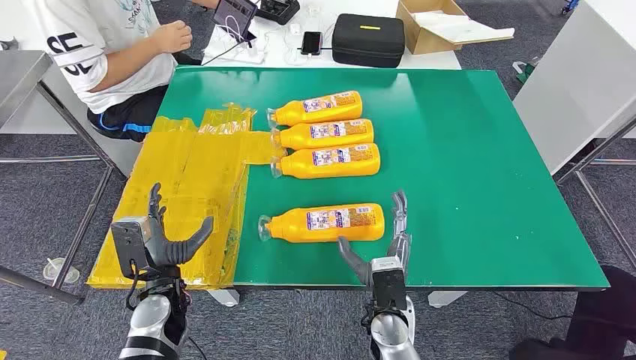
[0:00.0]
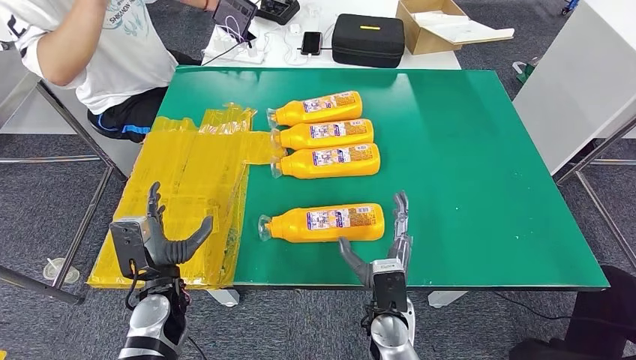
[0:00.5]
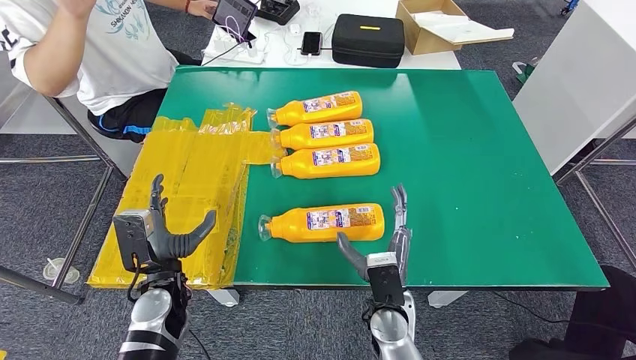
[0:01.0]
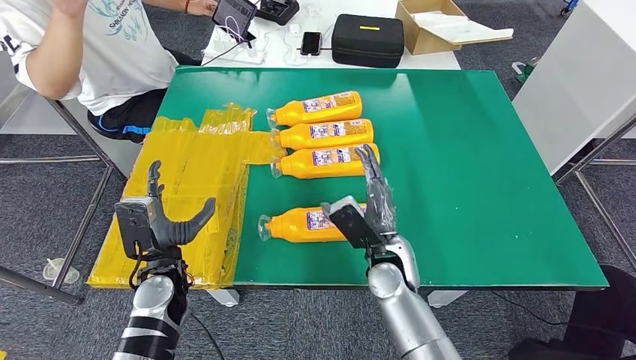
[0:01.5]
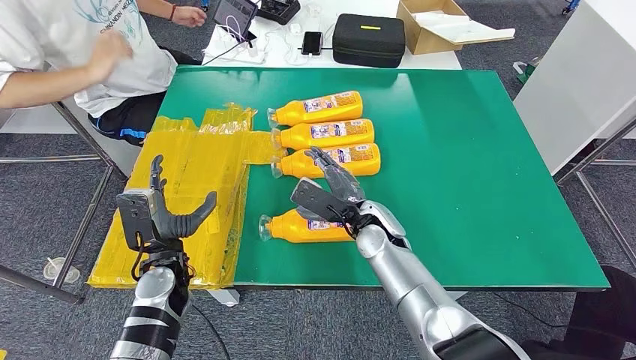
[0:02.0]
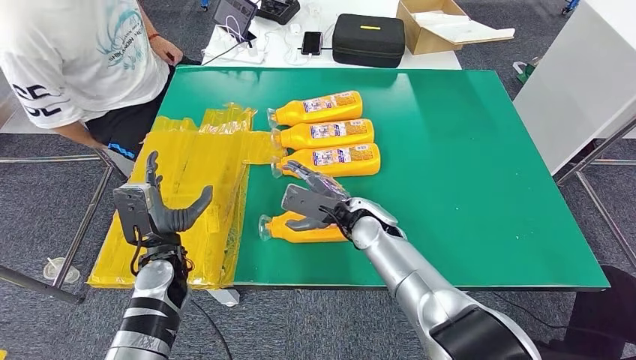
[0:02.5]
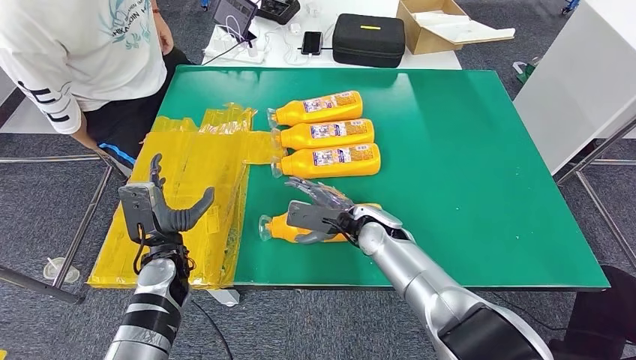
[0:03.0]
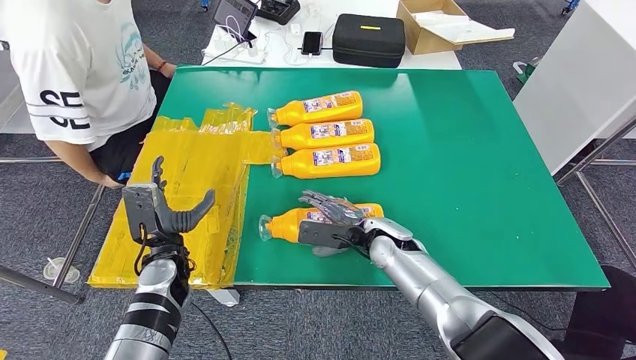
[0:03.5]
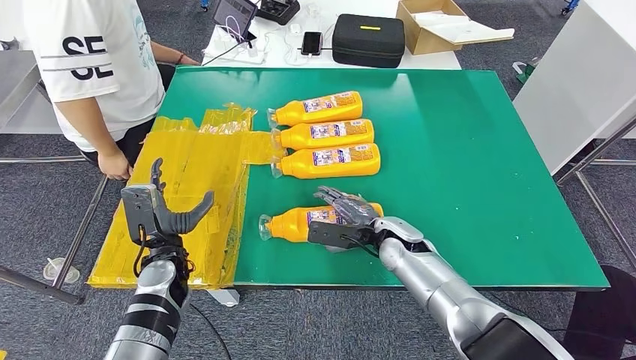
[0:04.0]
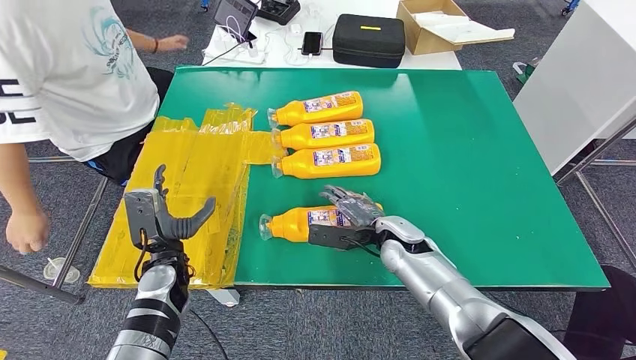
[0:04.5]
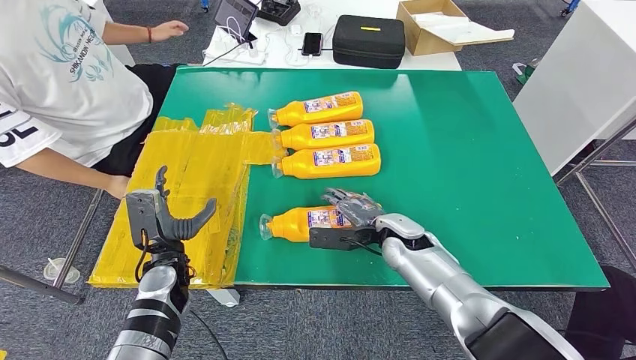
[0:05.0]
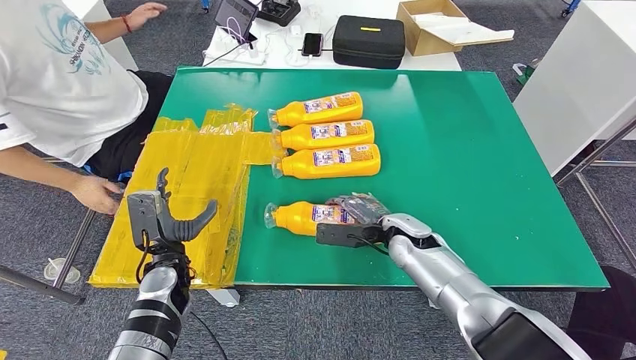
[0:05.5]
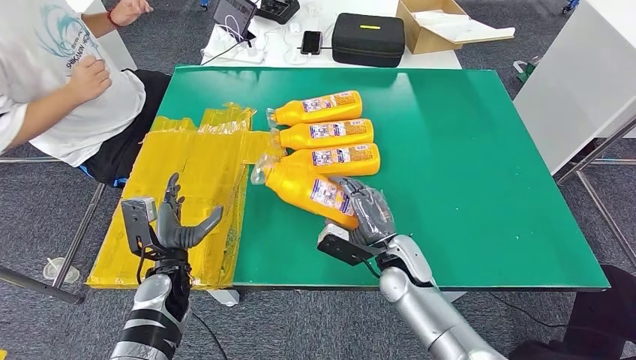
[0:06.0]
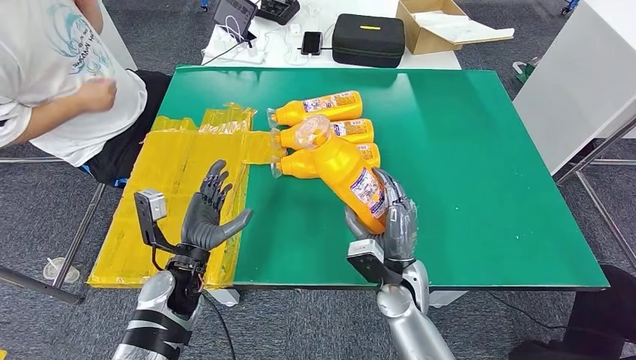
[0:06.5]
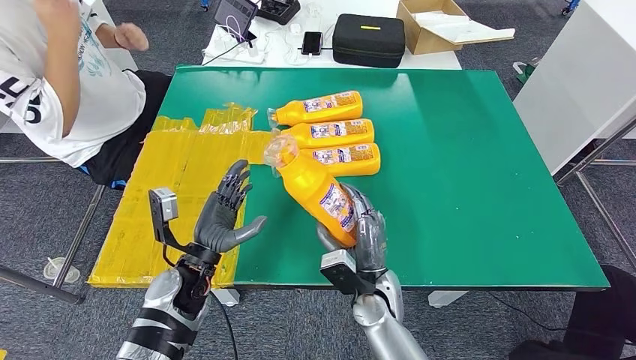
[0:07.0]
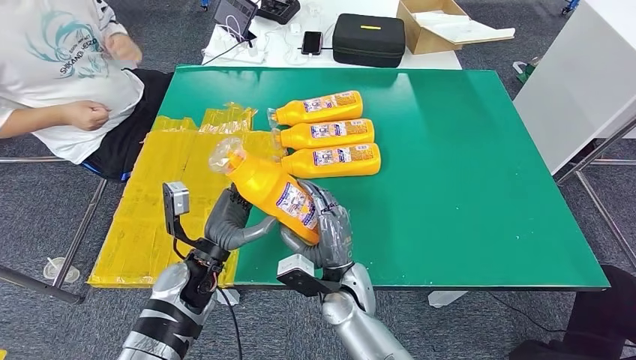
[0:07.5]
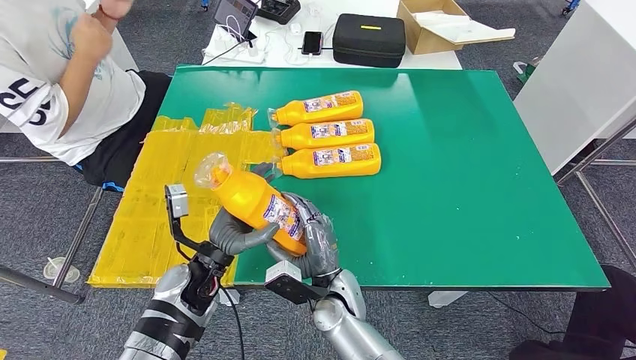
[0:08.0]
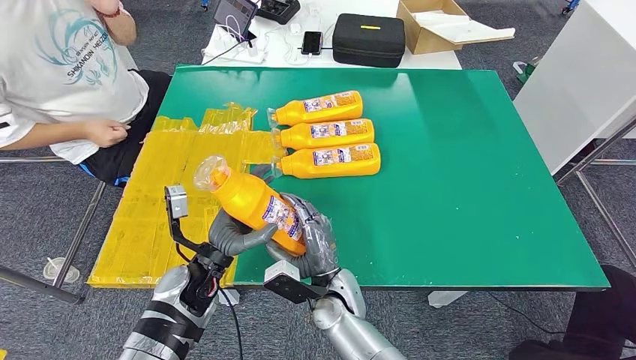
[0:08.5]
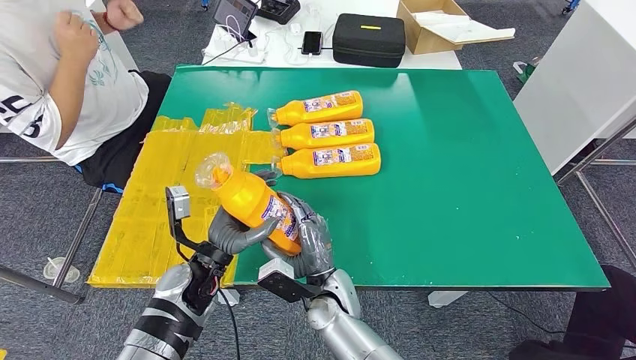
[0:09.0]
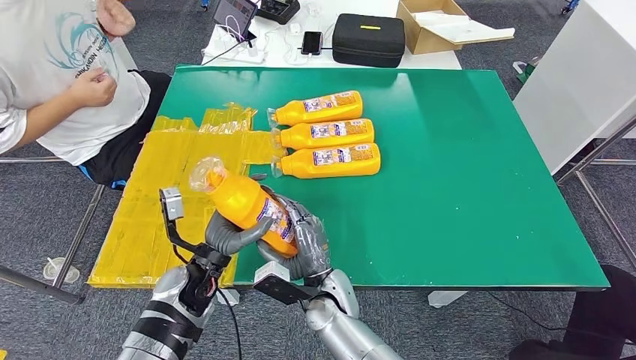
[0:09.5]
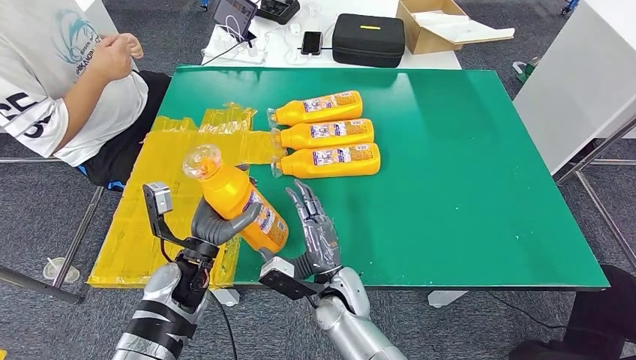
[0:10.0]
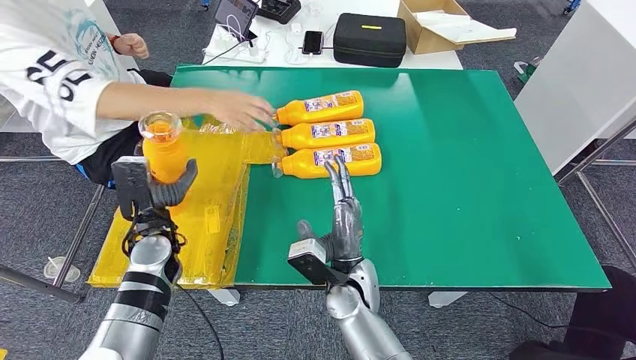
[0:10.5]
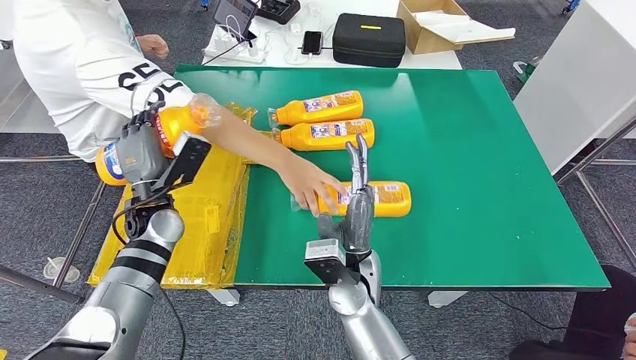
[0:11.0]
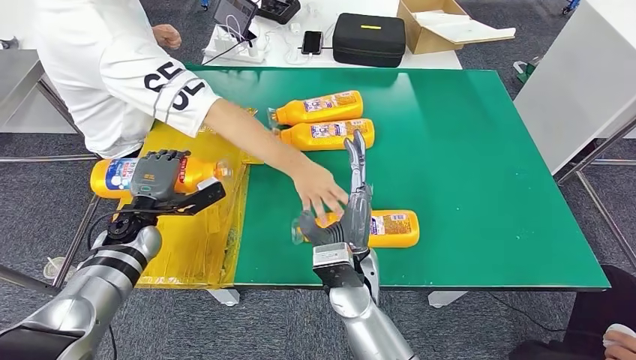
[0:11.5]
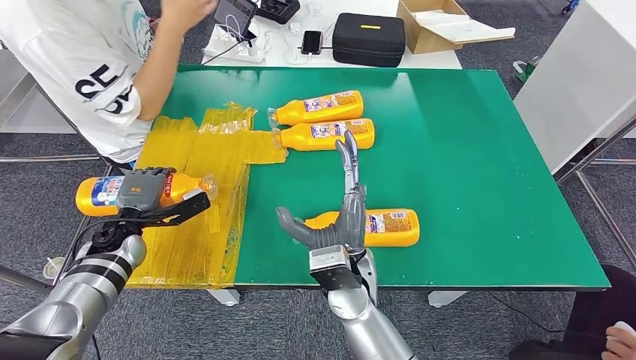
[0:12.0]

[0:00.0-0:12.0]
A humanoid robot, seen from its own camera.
Step, 0:00.0 to 0:06.5: Take the fast-moving consumer goods bottle from the table.
0:02.0 to 0:04.0: The right hand shifts by some 5 cm.
0:08.0 to 0:10.0: The hands make only small movements.

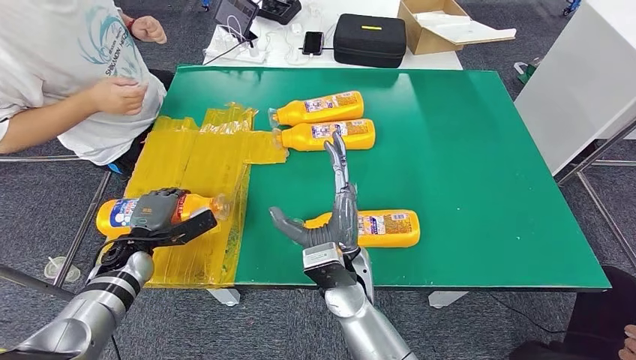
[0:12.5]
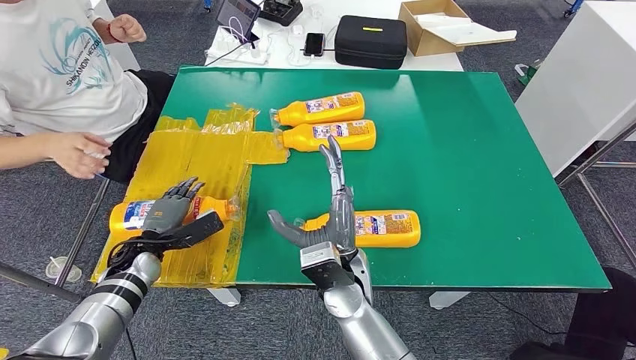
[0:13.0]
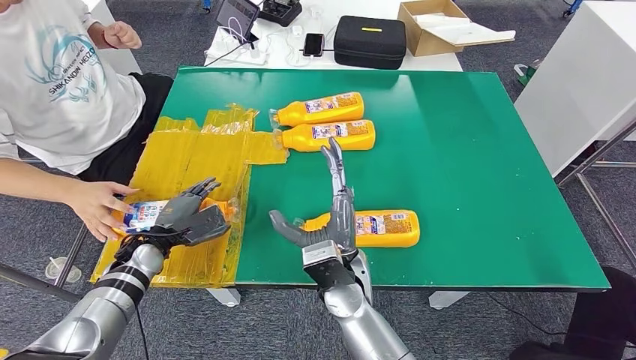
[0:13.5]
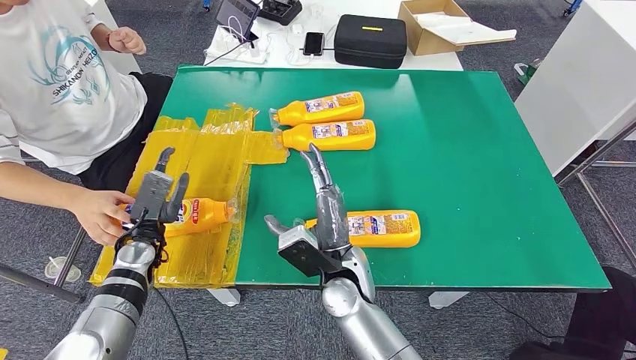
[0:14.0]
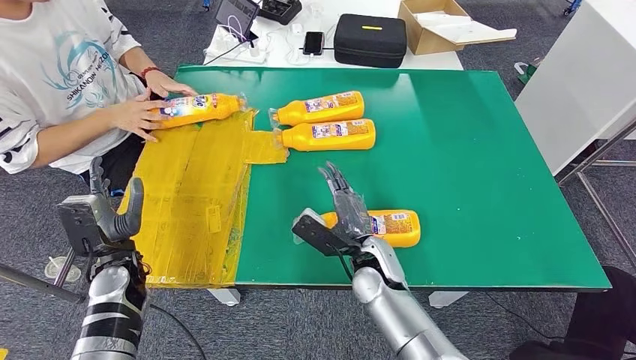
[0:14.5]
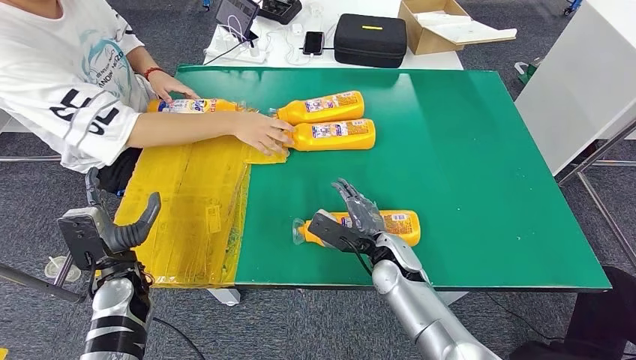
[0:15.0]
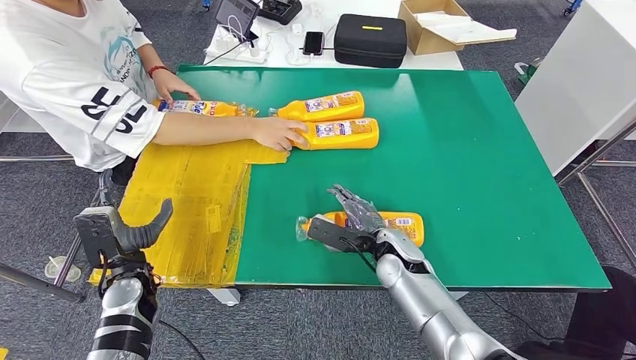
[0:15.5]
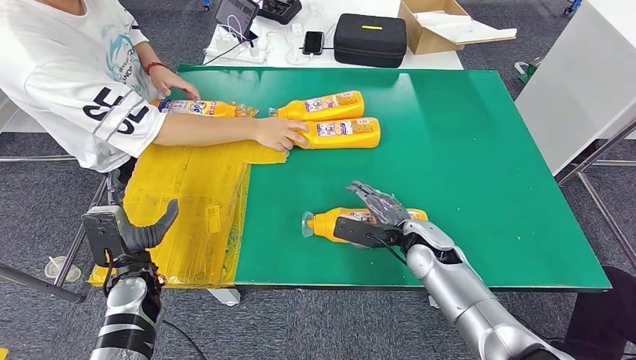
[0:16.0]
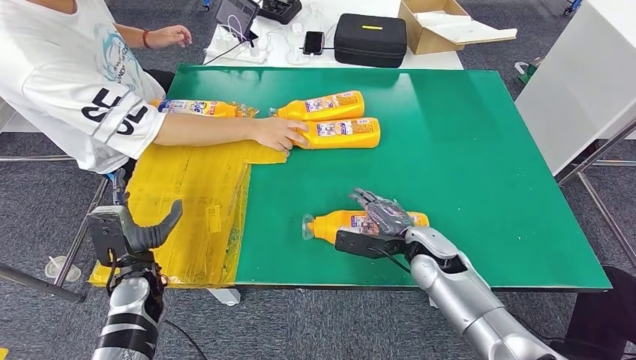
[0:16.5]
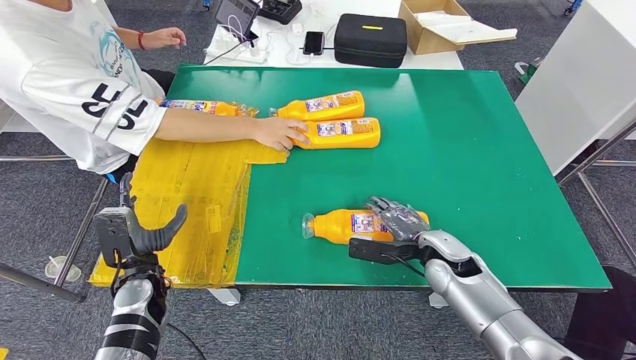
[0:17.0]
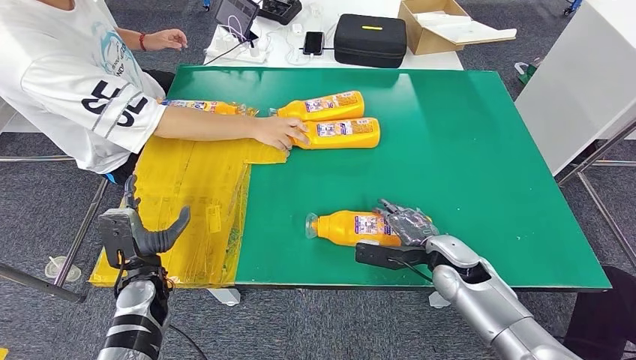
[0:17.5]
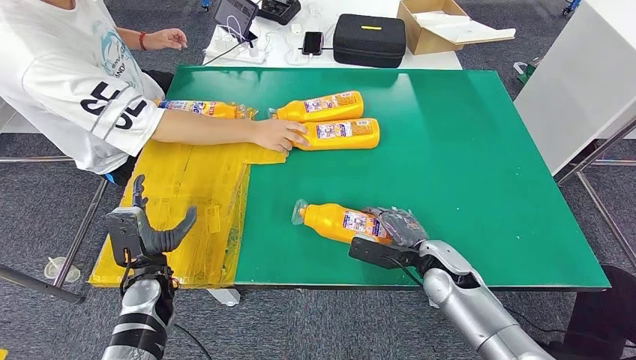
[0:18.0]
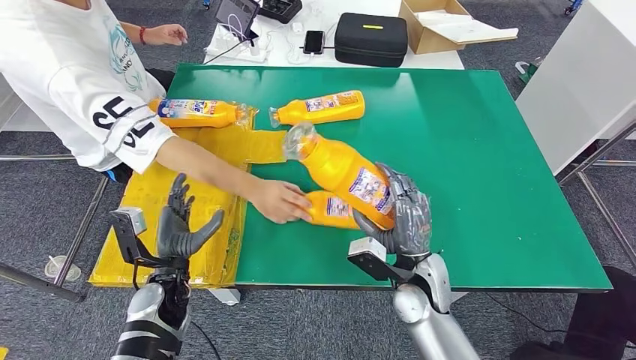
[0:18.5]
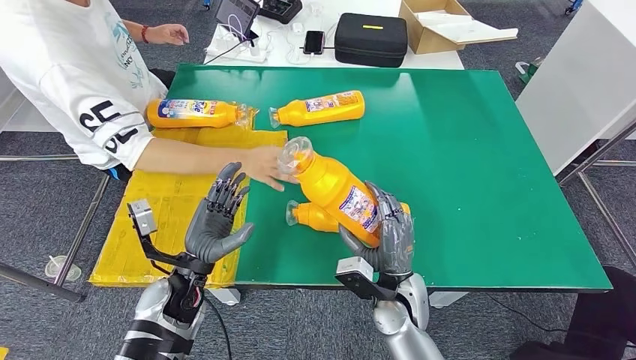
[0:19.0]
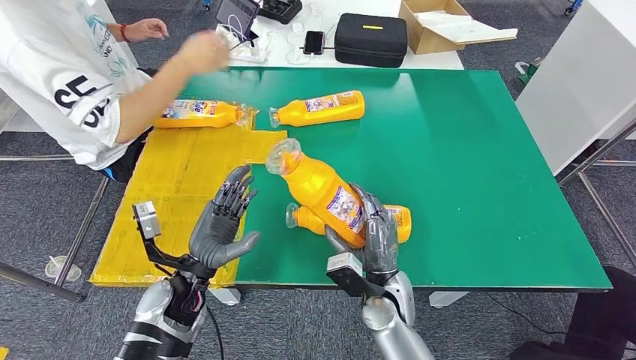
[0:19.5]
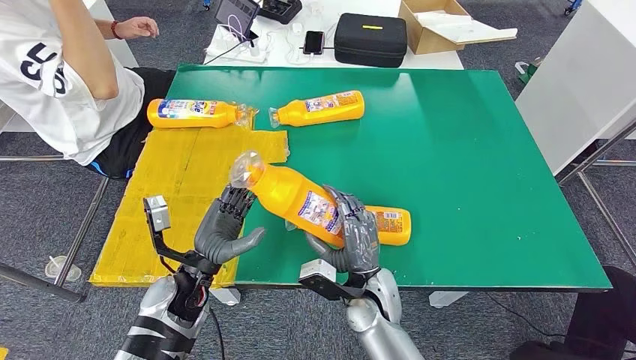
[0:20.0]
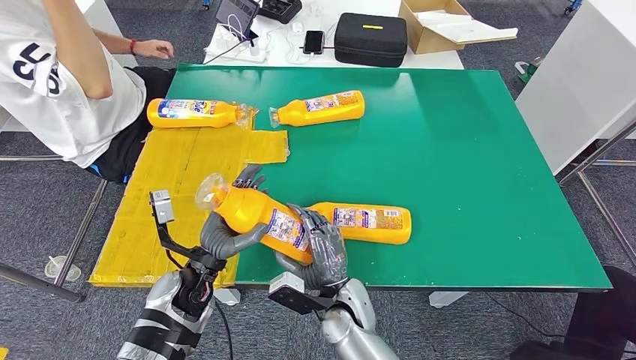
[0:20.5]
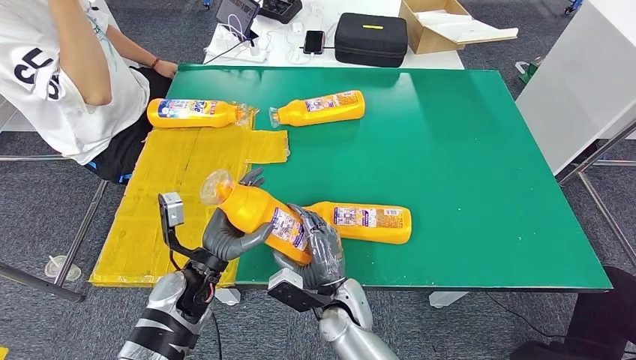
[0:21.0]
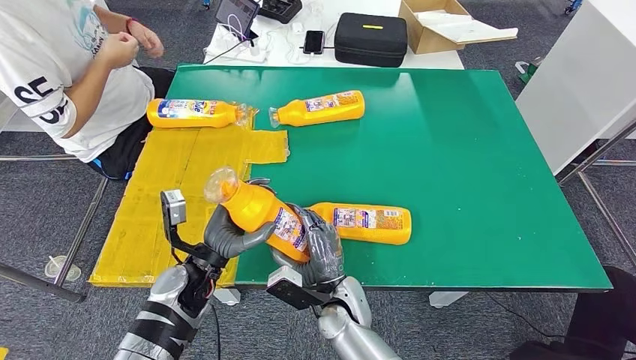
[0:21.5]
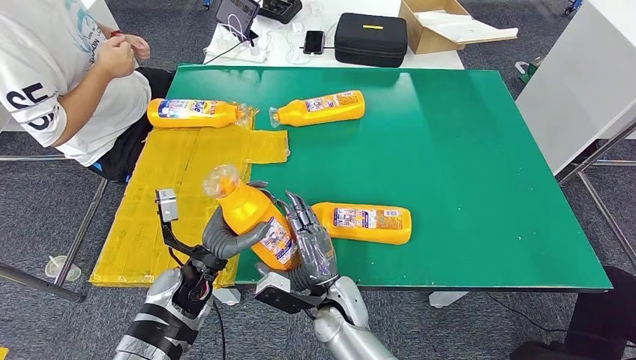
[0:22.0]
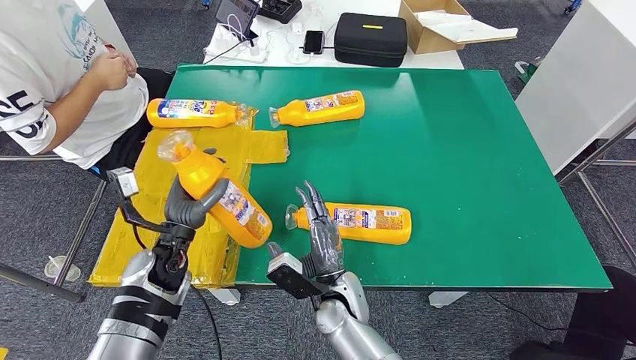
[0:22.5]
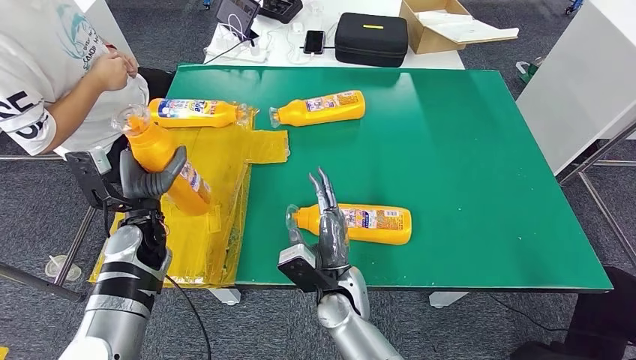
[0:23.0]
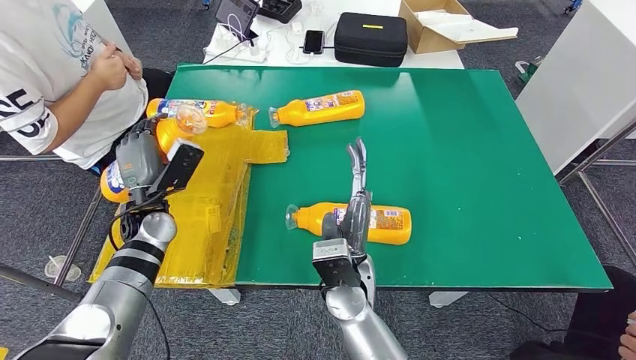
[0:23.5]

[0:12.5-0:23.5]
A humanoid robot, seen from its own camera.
Step, 0:14.0 to 0:19.5: Pick up the fast-moving consumer goods bottle from the table.
0:16.0 to 0:18.0: The right hand ends up about 5 cm from where it was.
0:20.0 to 0:21.5: The right hand travels to the left by some 5 cm.
